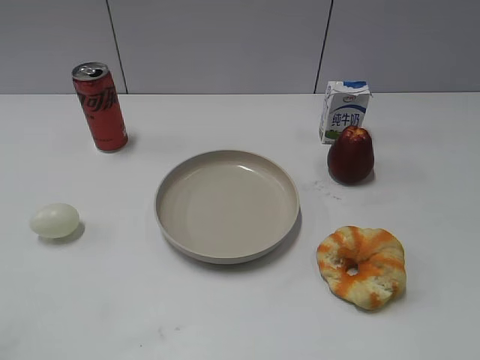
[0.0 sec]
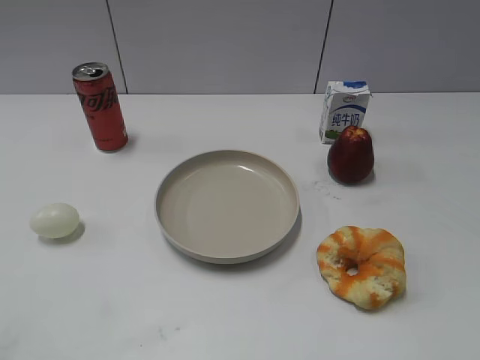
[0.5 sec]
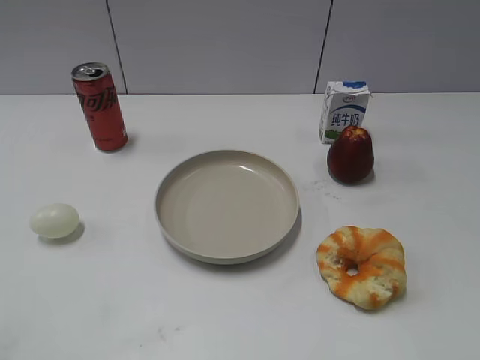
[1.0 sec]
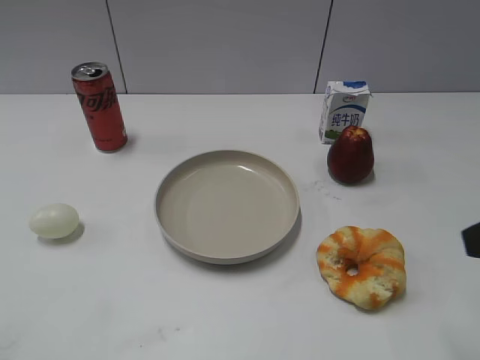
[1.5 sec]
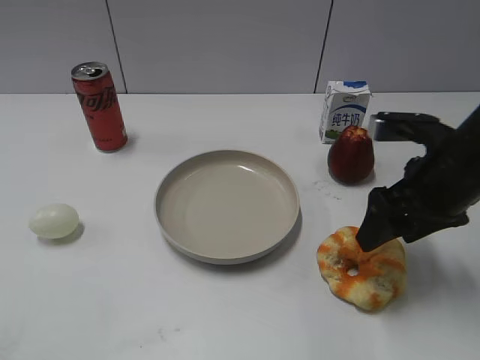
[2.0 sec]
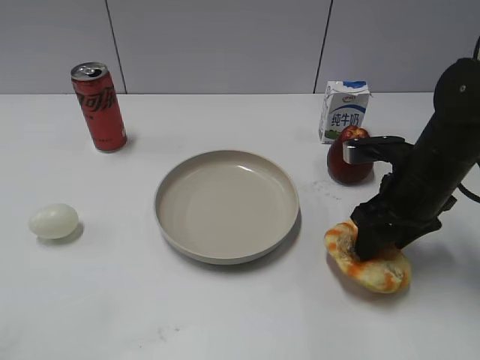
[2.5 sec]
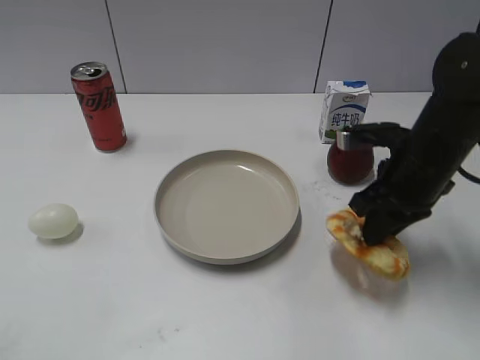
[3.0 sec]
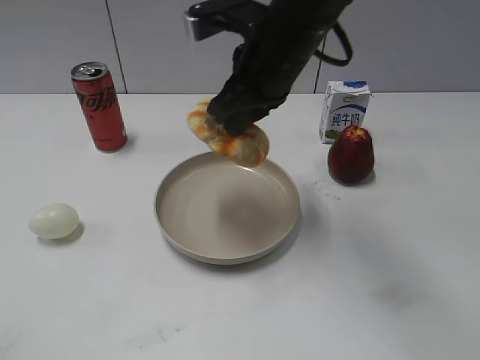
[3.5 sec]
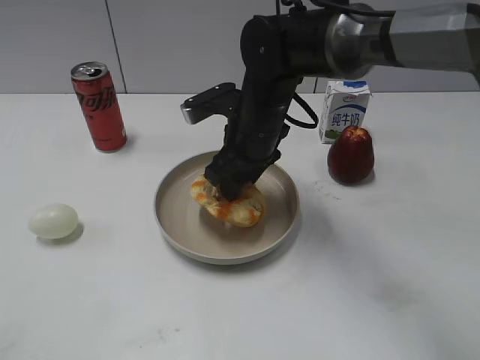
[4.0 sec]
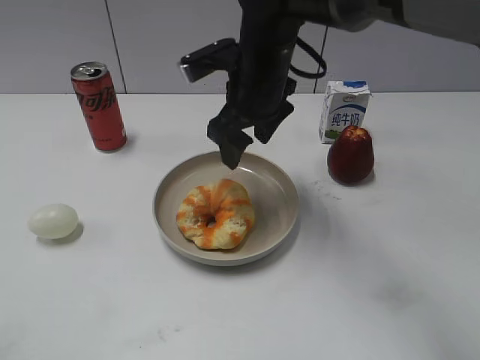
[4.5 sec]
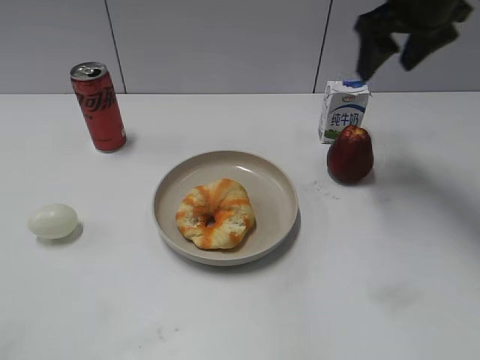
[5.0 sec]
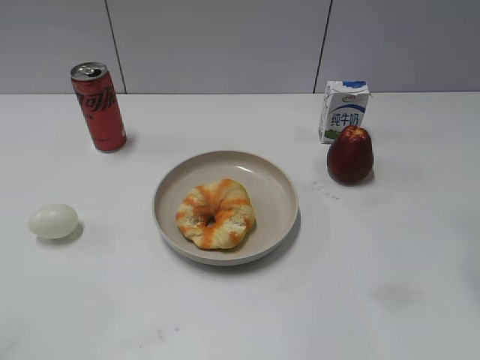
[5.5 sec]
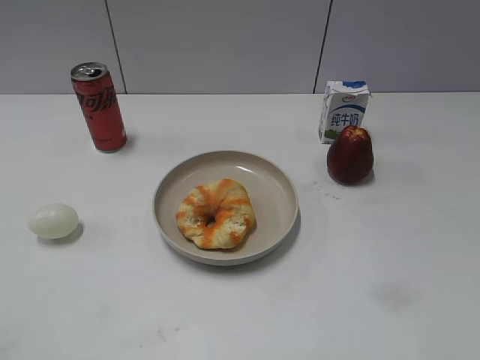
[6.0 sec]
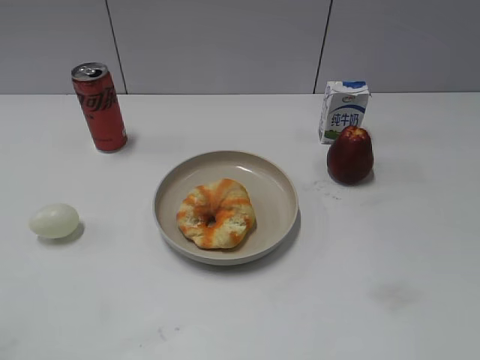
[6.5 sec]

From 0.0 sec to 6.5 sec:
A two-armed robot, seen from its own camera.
Step, from 0.0 sec to 2.5 sec: Grasp the round bread with right gripper.
Step, from 3.0 sec to 4.5 sec: Place the round bread on the plate with right gripper.
From 2.0 sec to 4.5 sec: The right gripper heads to the left and forward, covering about 20 cm, and closes, then opens again.
From 4.5 sec to 6.5 sec: The right gripper heads backward and to the right, covering approximately 40 cm.

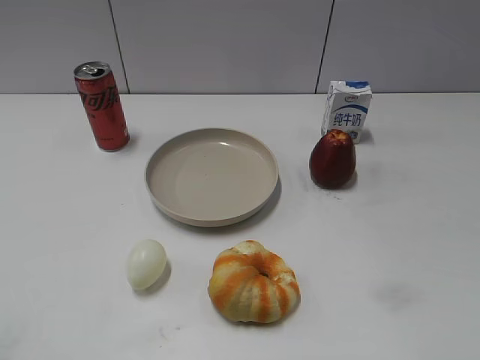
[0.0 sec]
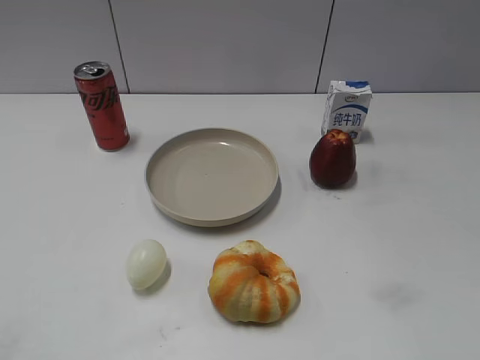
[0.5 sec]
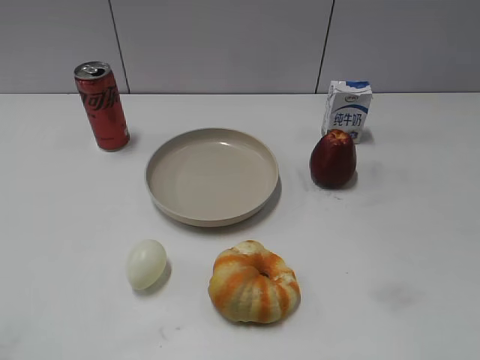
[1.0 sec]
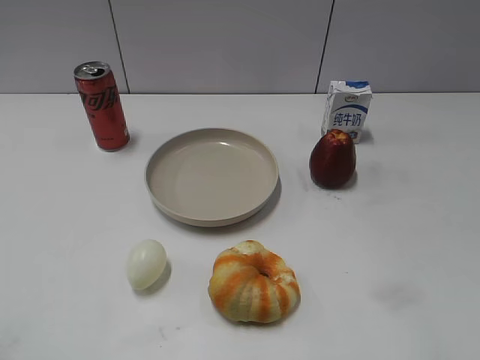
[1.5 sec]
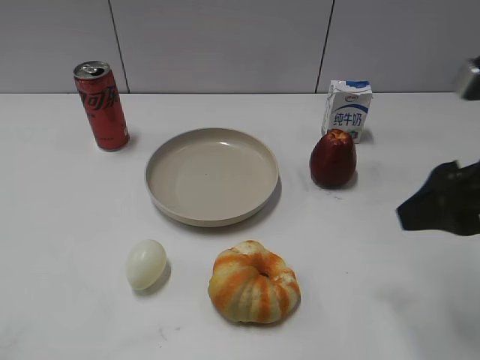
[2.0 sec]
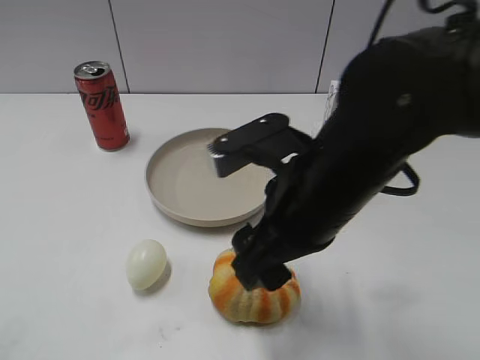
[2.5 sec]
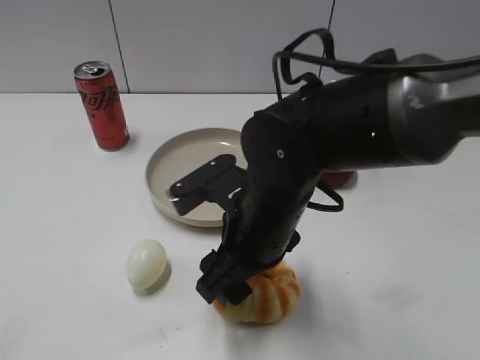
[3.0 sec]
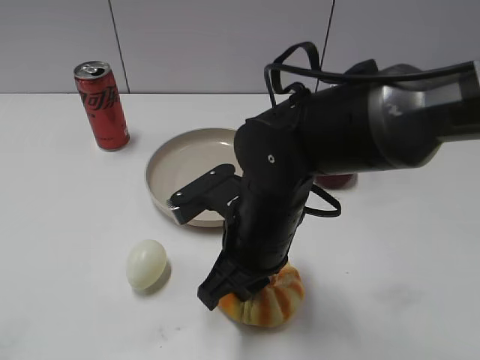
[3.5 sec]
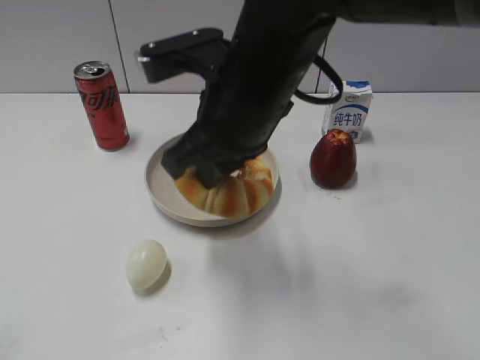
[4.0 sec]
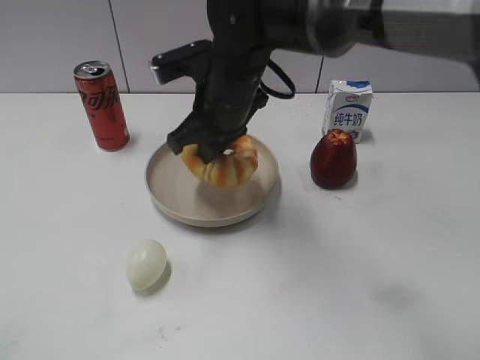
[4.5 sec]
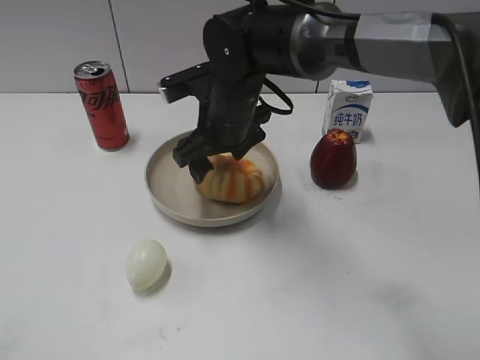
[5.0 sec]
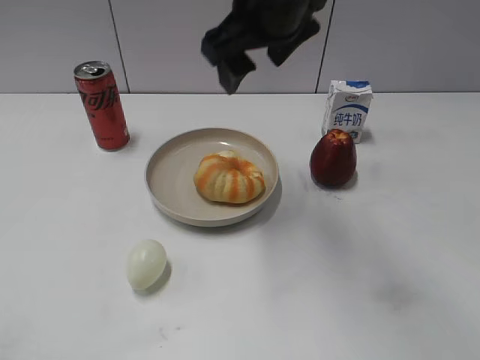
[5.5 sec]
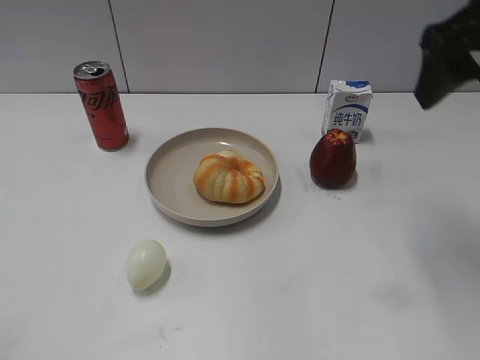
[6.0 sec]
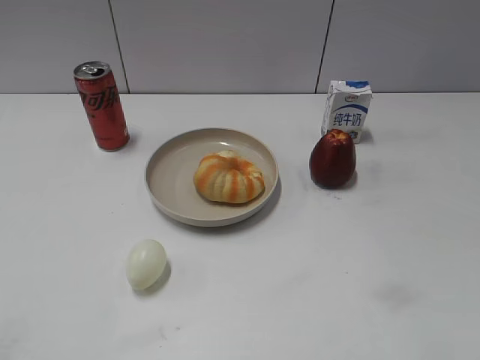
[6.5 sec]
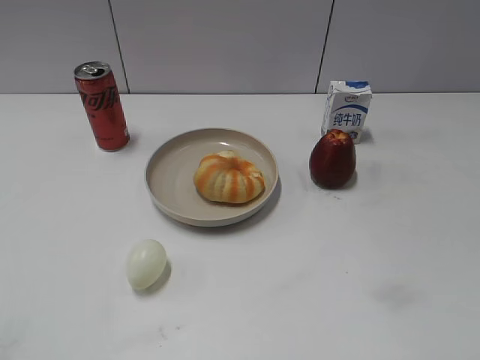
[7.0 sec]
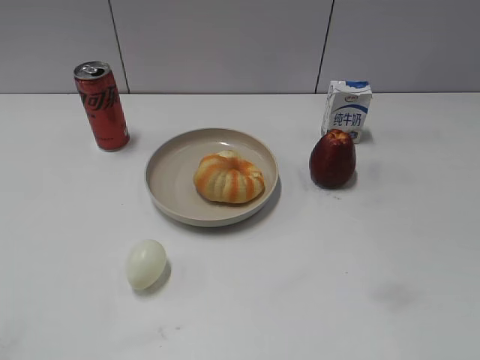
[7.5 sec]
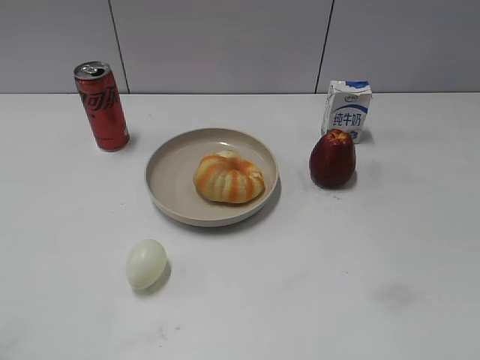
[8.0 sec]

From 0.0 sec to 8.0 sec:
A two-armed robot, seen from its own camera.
Step, from 1.0 sec to 3.0 sec: Grasp the round bread with right gripper.
Step, from 3.5 sec to 5.0 sec: Place the round bread on the plate with right gripper.
From 2.0 sec to 4.0 sec: The right gripper travels to the left by some 20 cm, and closes up.
From 4.0 sec to 6.0 sec: The right gripper shifts about 20 cm to the right, and opens.
From 6.0 sec to 8.0 sec: The right gripper shifts roughly 30 cm backward.
